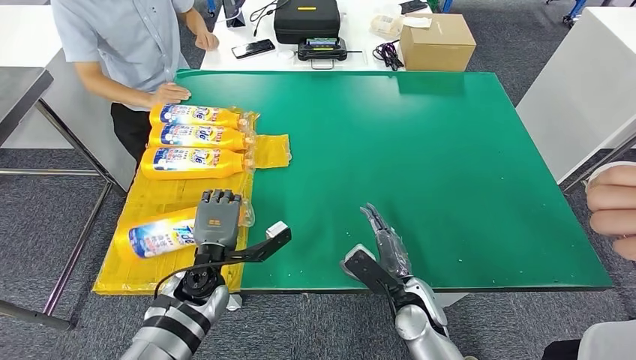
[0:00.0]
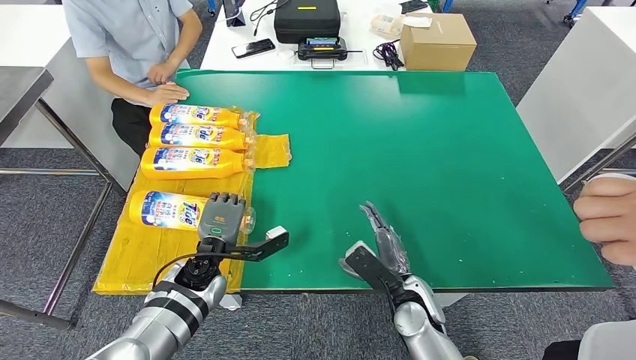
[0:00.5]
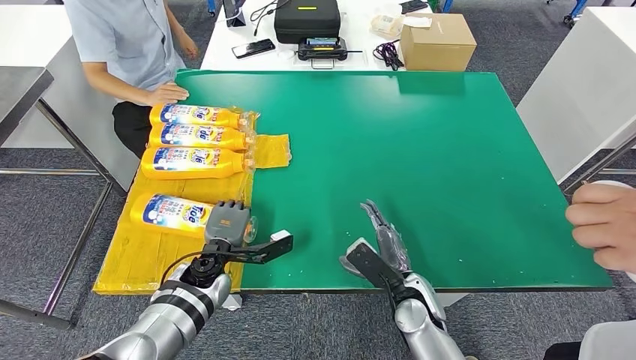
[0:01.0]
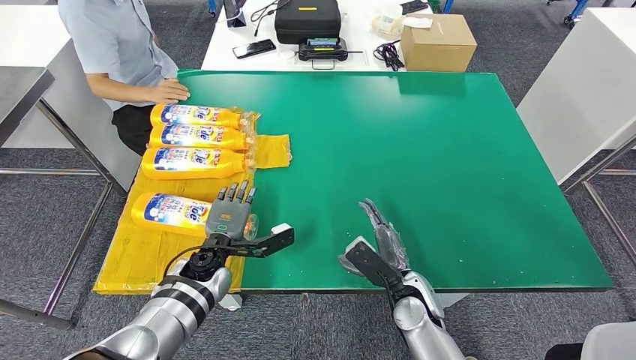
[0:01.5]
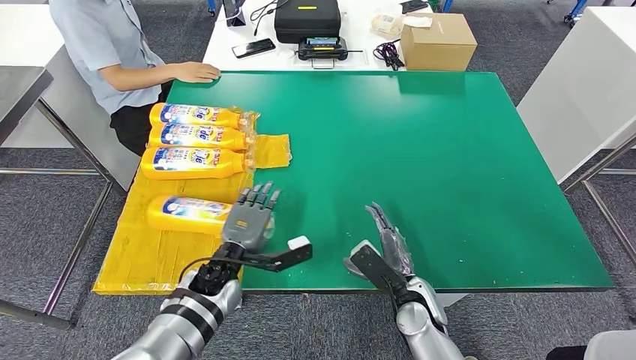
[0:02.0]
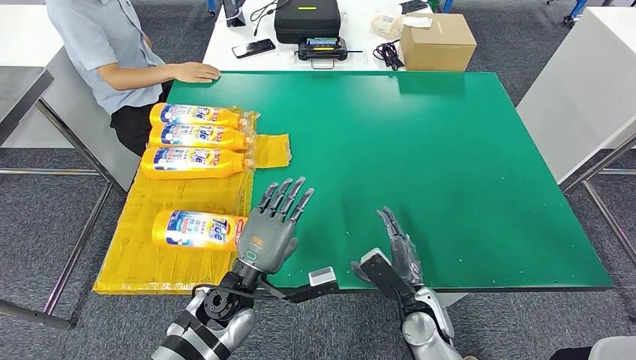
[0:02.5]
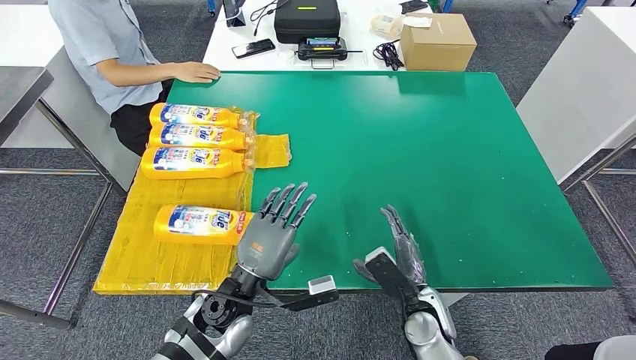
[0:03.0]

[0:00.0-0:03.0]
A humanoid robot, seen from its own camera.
Step, 0:00.0 to 0:03.0: Flip the fast-moving consumer goods bottle to the front side.
0:00.0 to 0:01.5: The hands move only a little.
0:01.5 to 0:03.0: The left hand is displaced backward and to the right by roughly 10 cm.

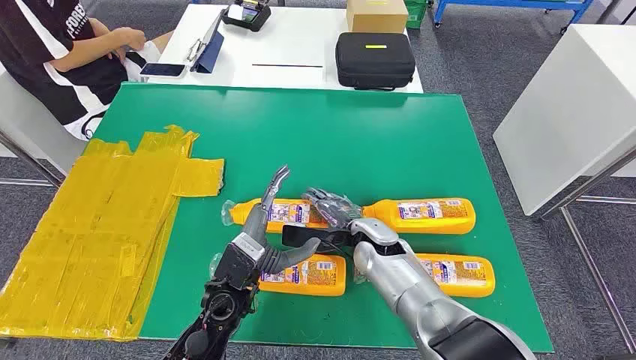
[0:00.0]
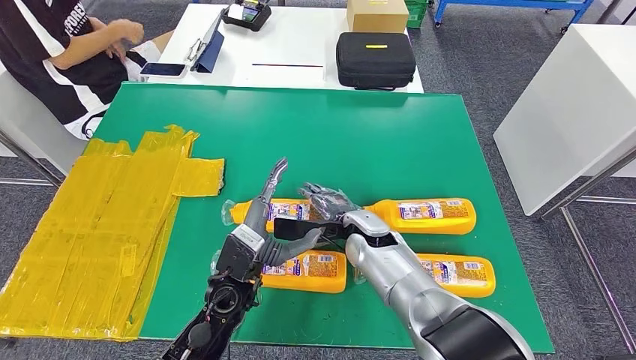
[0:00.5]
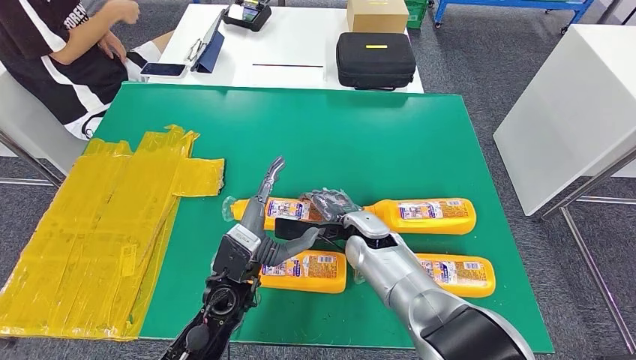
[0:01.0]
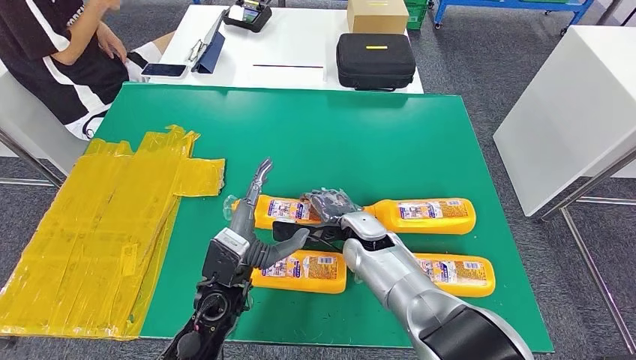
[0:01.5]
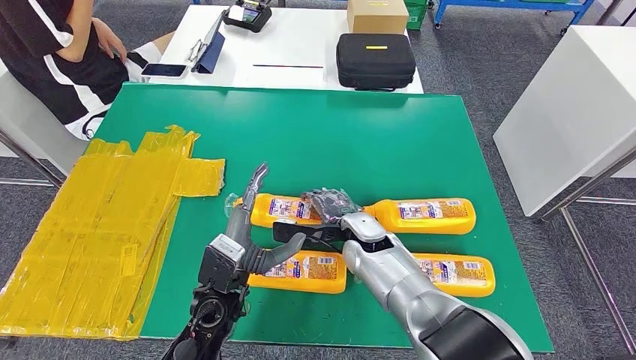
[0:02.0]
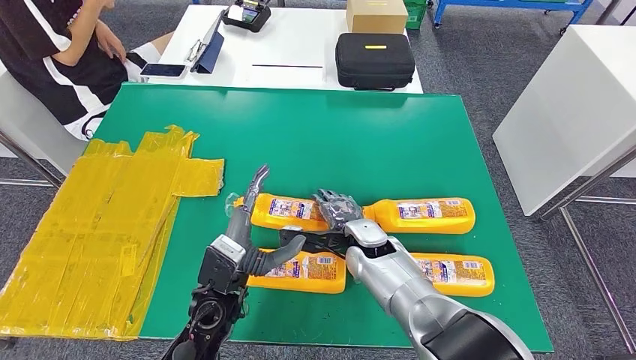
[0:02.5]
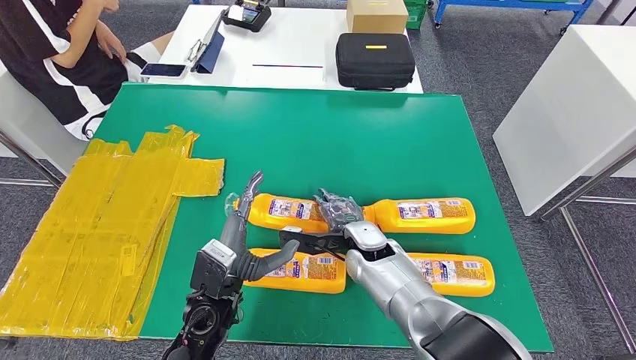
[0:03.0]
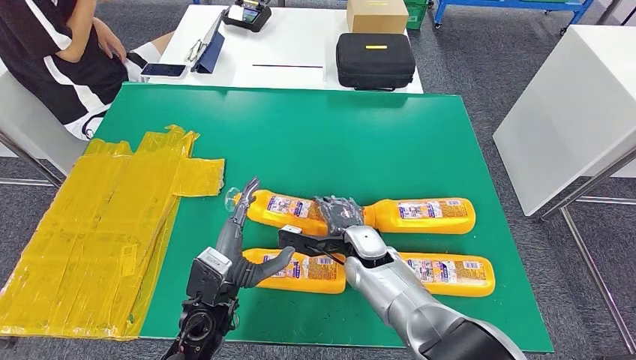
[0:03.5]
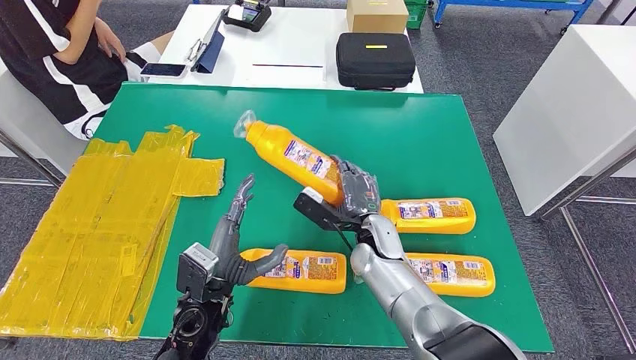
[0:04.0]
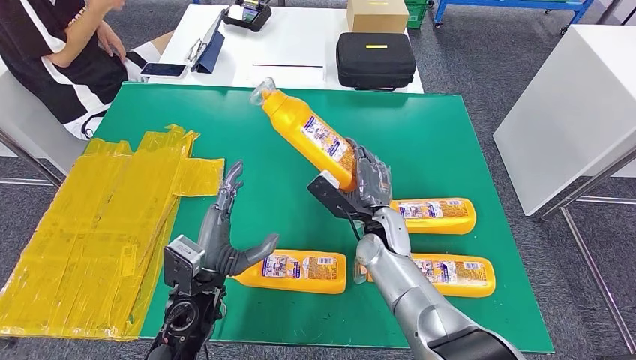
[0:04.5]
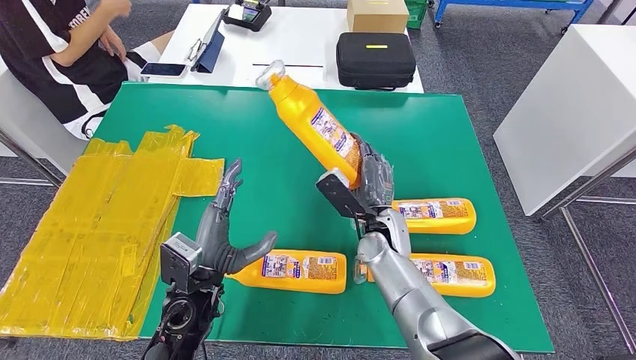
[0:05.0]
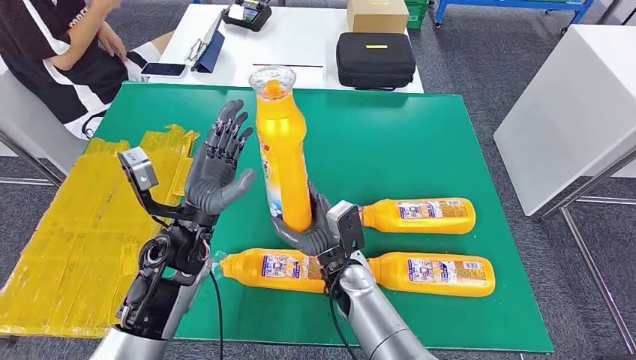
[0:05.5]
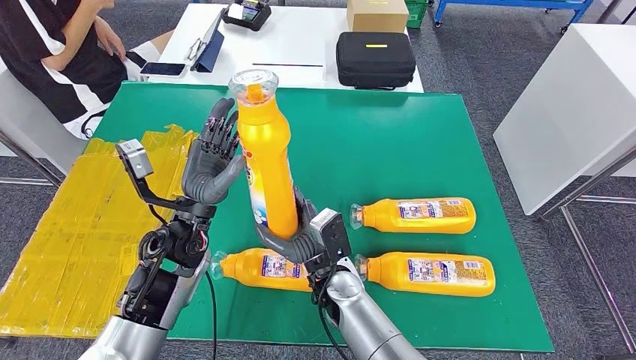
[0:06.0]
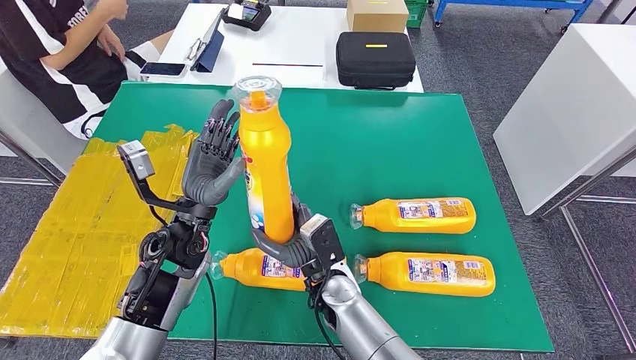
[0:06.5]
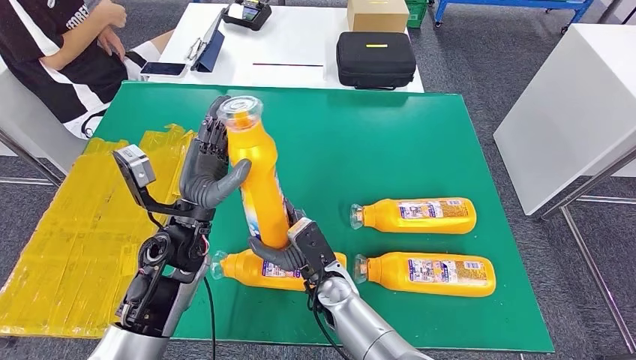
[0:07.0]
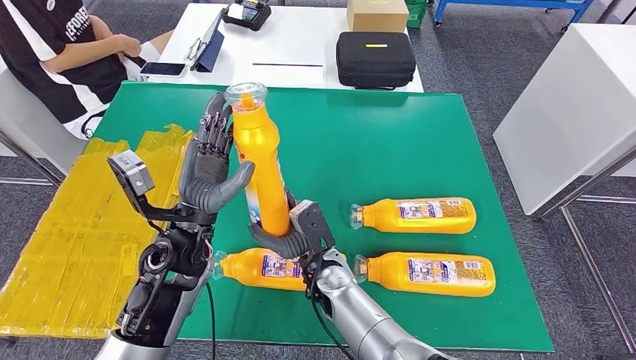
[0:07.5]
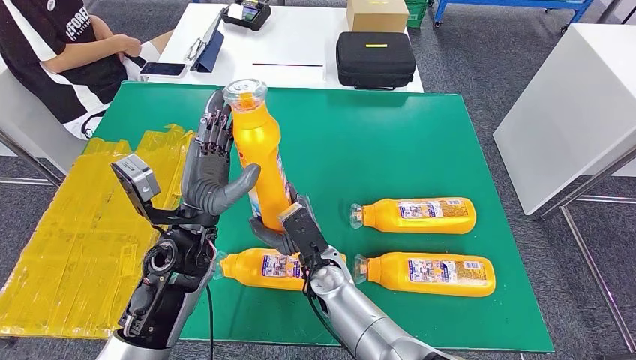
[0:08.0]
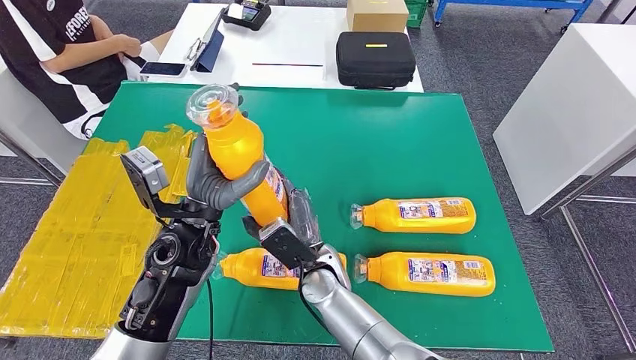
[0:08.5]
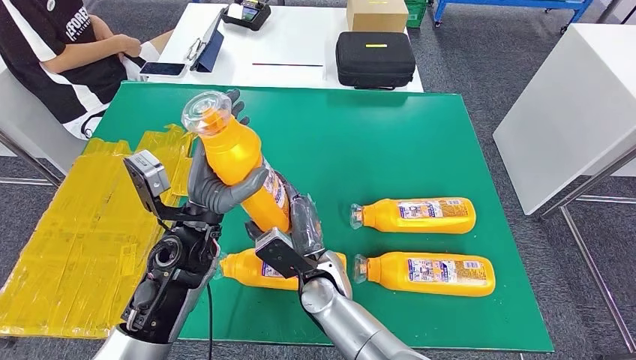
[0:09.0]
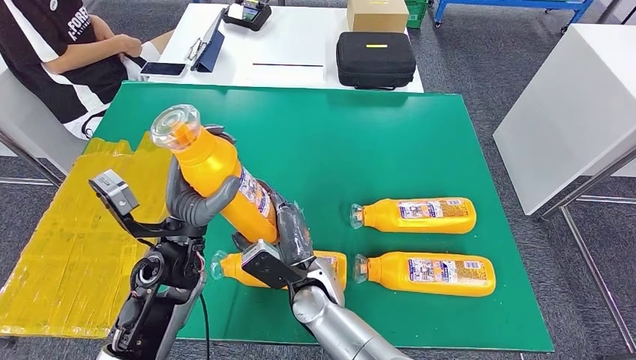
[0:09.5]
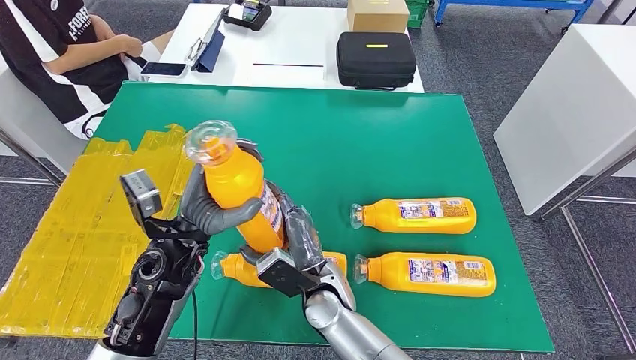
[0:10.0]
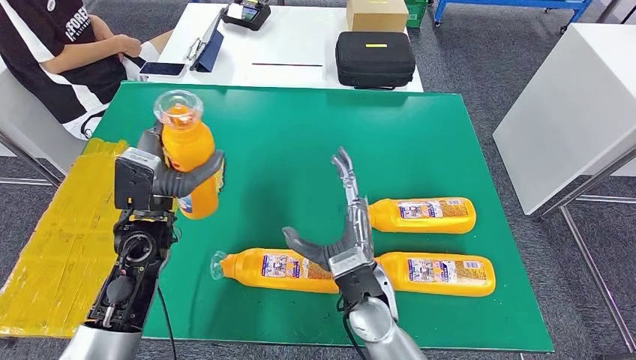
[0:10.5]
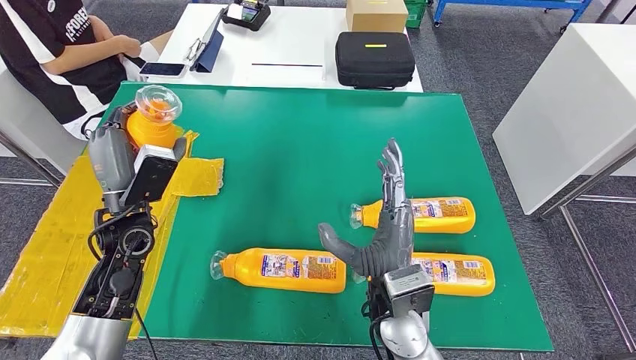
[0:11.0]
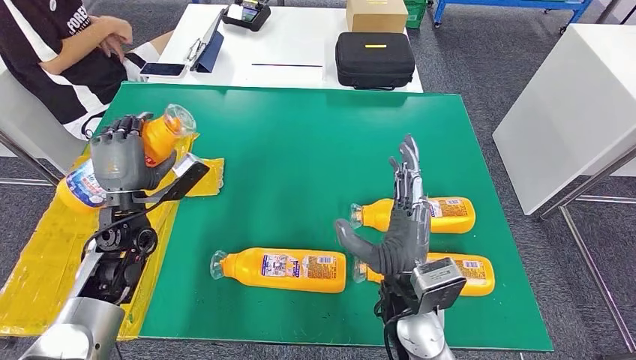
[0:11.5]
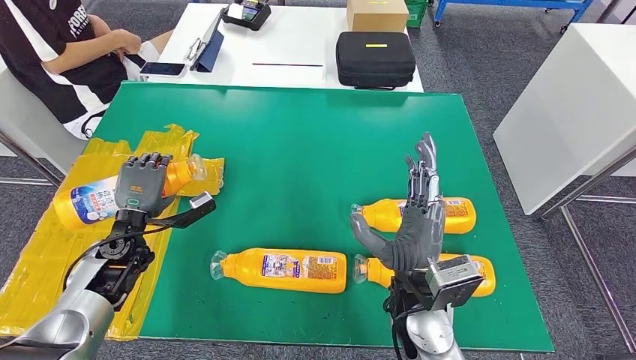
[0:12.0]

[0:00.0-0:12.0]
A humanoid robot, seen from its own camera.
Step, 0:00.0 to 0:05.0: Take the fast-moving consumer goods bottle from the table.
0:06.0 to 0:08.0: The hands make only small movements.

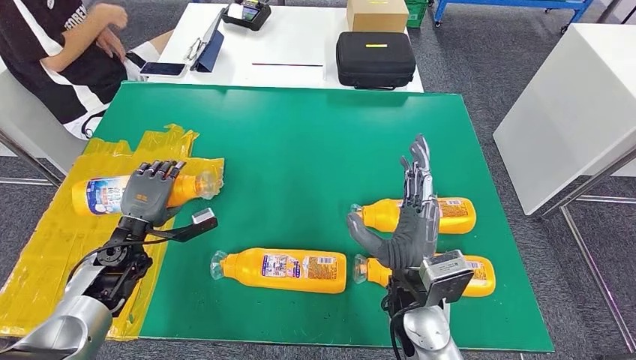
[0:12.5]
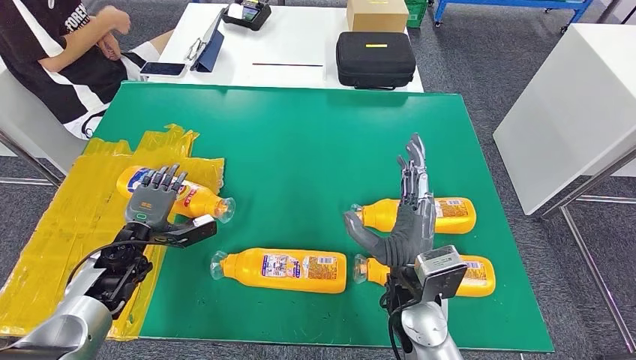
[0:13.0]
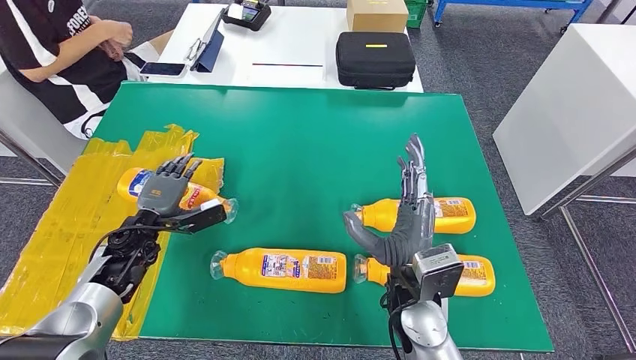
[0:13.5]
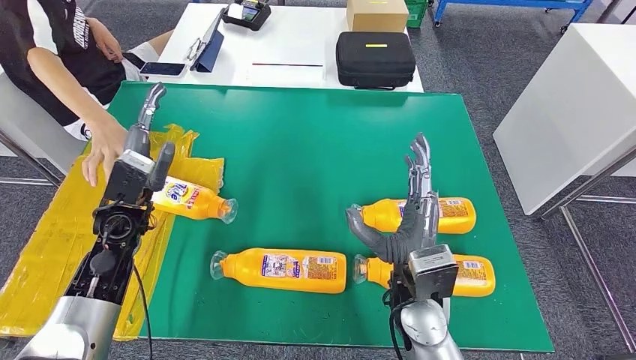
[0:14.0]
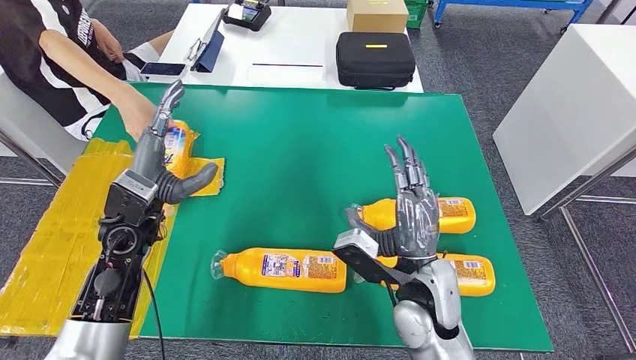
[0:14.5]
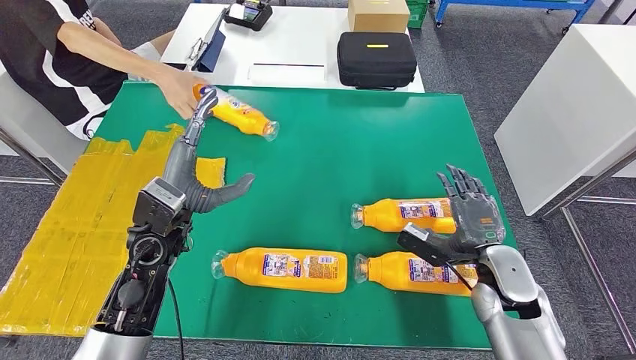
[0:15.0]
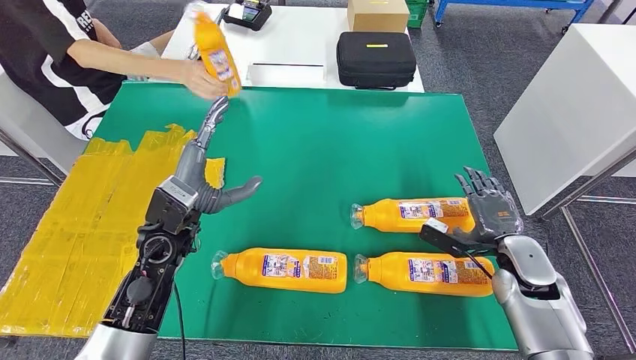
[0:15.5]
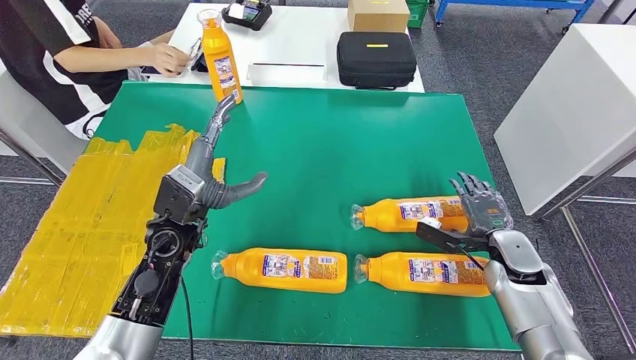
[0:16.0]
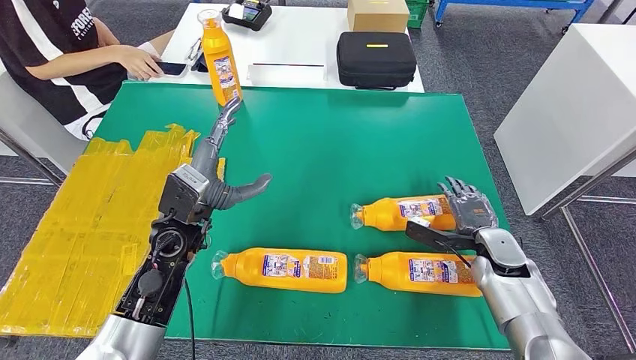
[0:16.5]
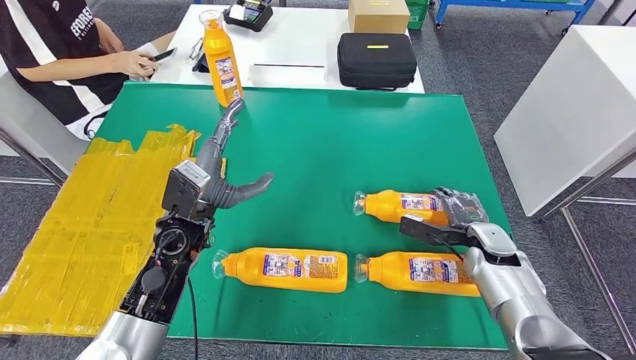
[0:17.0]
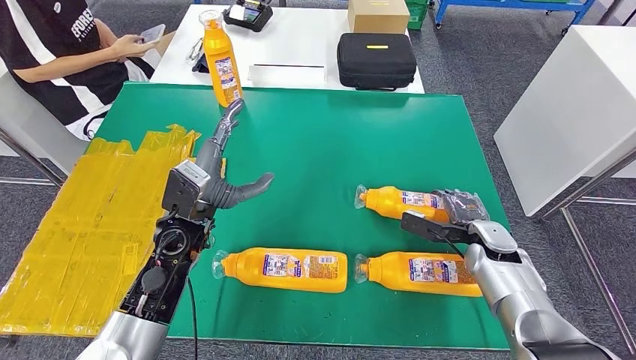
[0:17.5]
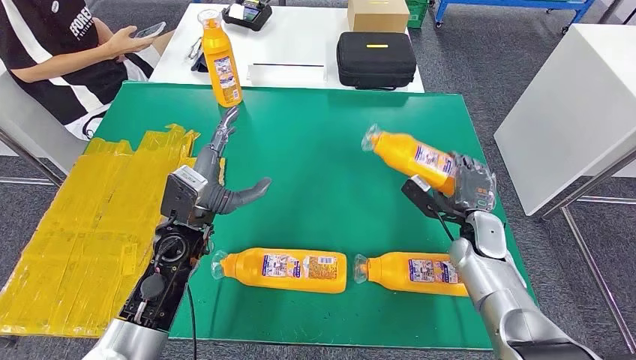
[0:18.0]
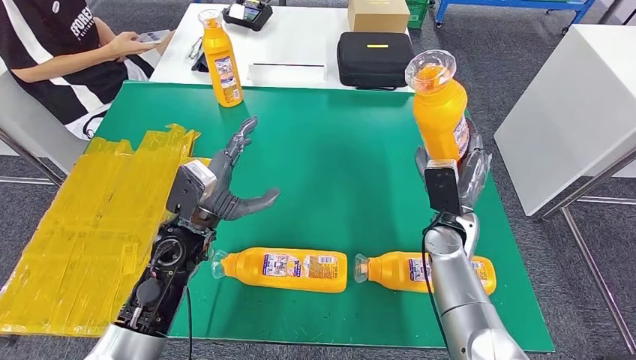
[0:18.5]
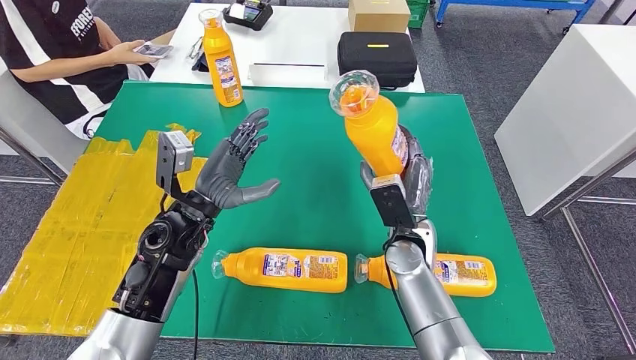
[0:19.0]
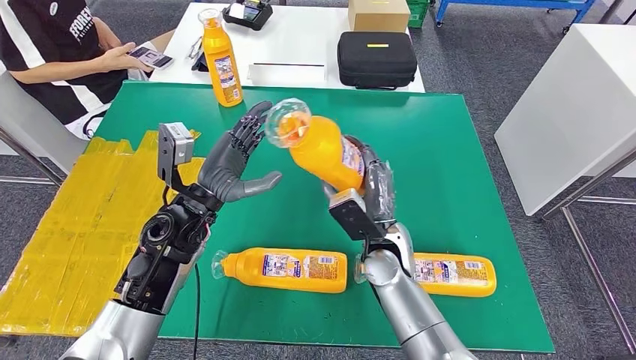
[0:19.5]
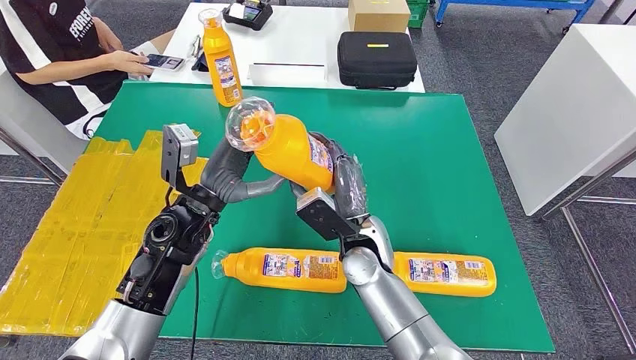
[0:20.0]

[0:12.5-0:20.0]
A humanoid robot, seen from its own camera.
Step, 0:17.0 to 0:20.0: Pick up the fast-moving consumer goods bottle from the table.
0:12.5 to 0:14.5: The left hand goes roughly 15 cm upward and to the right.
0:16.5 to 0:18.0: The right hand ends up approximately 5 cm from where it was.
